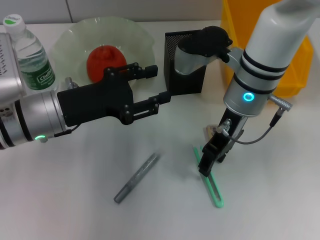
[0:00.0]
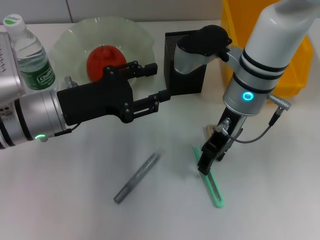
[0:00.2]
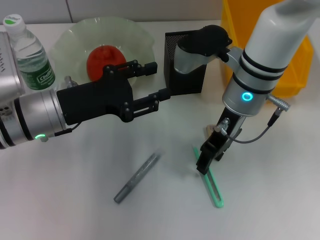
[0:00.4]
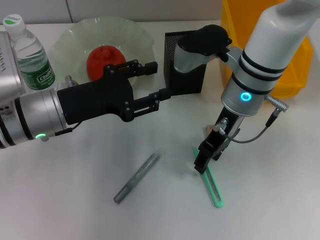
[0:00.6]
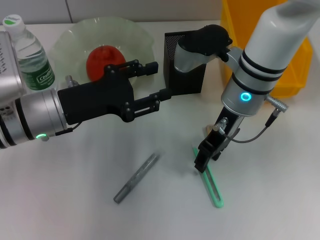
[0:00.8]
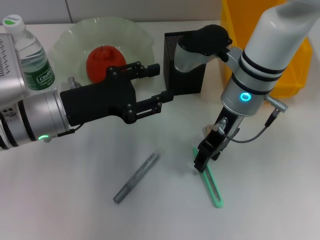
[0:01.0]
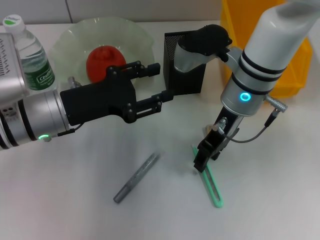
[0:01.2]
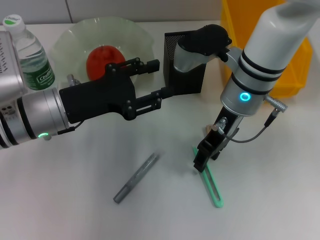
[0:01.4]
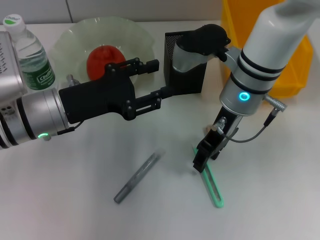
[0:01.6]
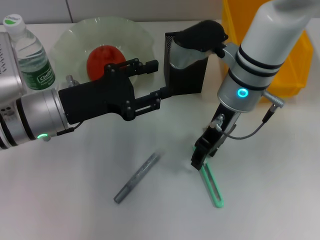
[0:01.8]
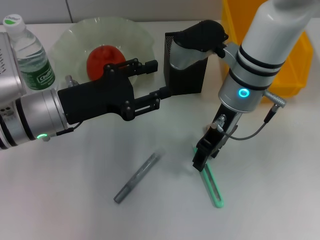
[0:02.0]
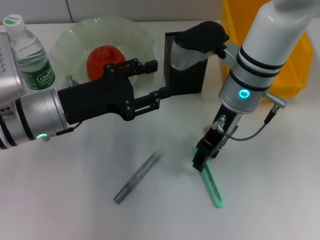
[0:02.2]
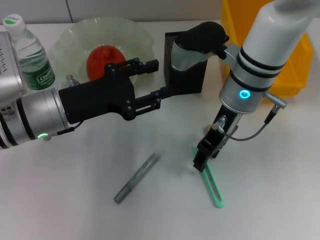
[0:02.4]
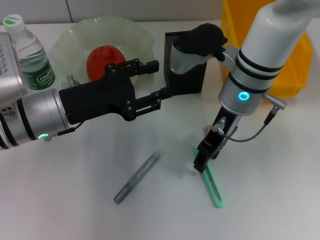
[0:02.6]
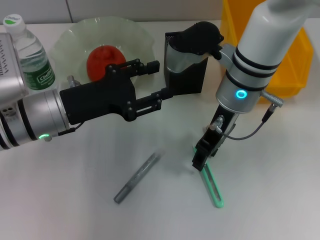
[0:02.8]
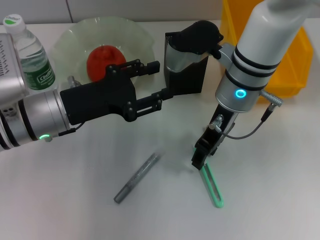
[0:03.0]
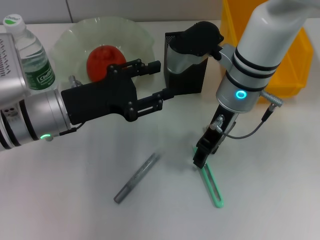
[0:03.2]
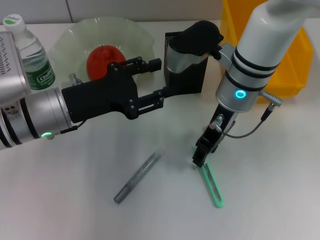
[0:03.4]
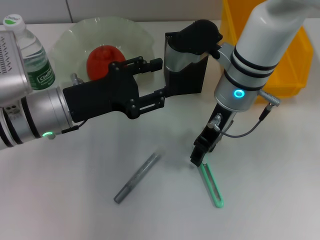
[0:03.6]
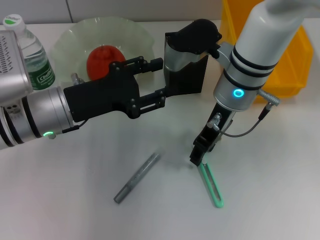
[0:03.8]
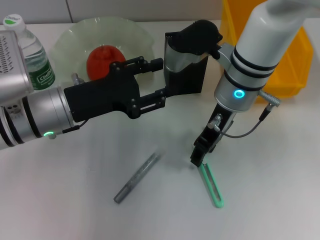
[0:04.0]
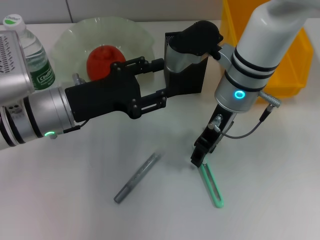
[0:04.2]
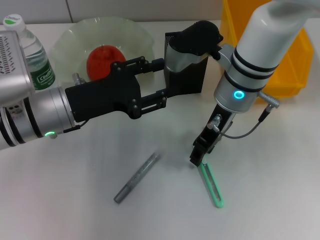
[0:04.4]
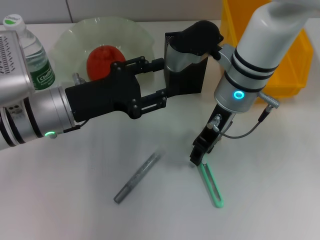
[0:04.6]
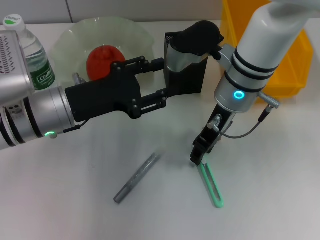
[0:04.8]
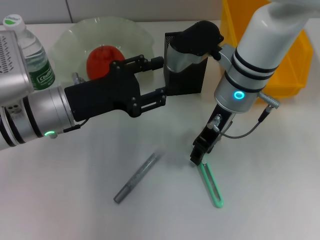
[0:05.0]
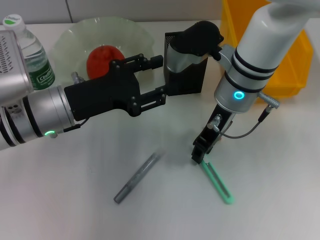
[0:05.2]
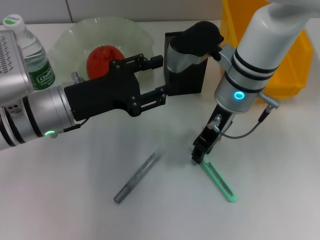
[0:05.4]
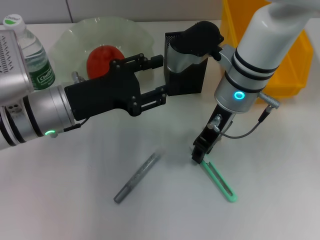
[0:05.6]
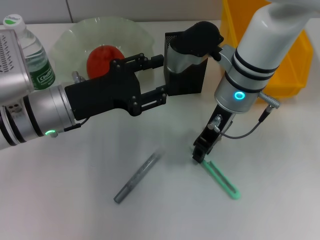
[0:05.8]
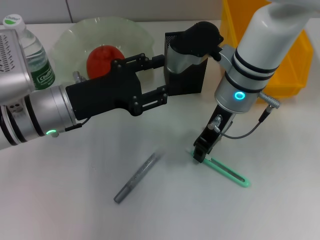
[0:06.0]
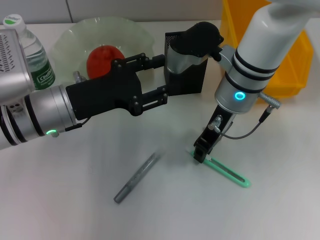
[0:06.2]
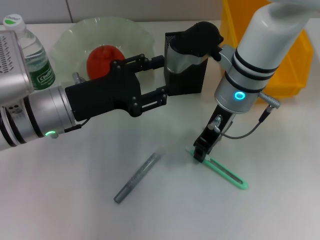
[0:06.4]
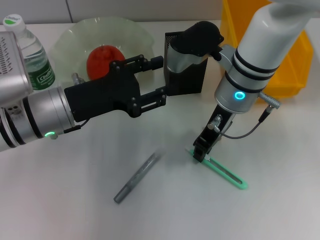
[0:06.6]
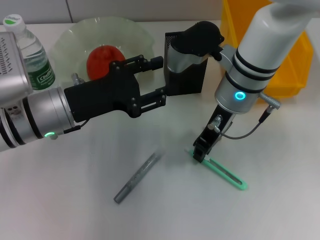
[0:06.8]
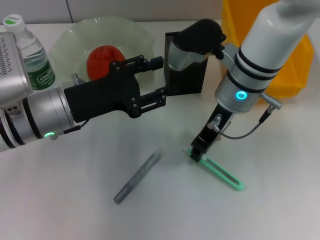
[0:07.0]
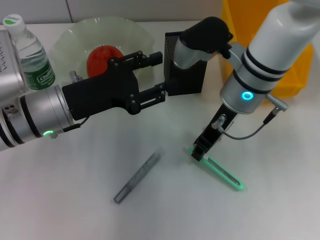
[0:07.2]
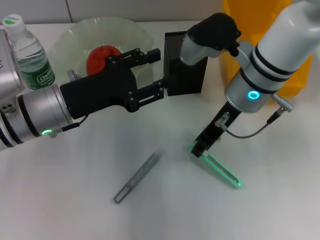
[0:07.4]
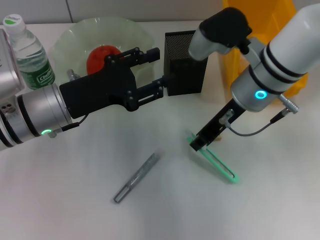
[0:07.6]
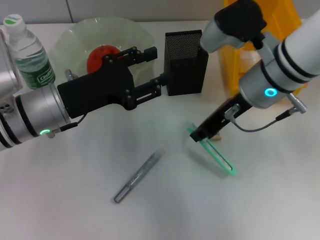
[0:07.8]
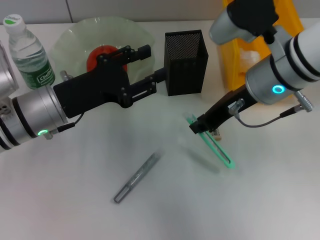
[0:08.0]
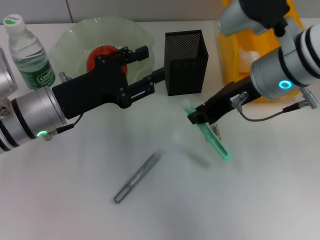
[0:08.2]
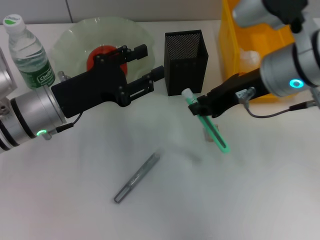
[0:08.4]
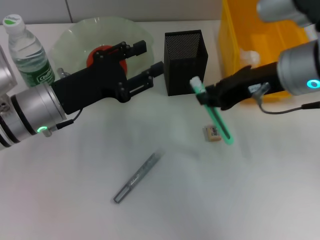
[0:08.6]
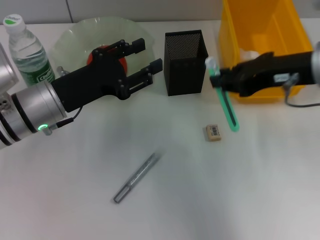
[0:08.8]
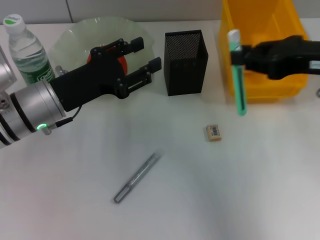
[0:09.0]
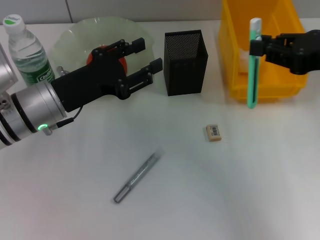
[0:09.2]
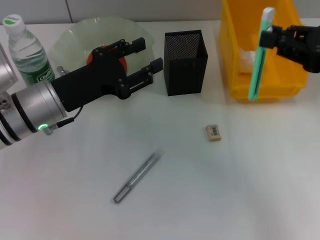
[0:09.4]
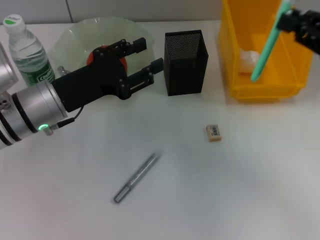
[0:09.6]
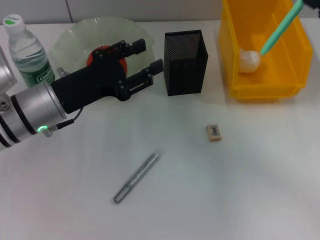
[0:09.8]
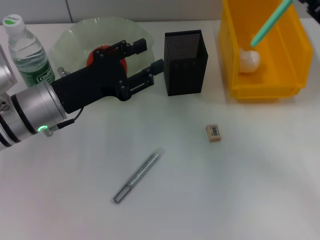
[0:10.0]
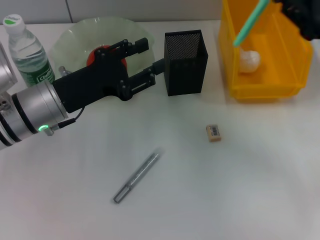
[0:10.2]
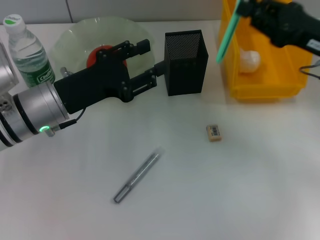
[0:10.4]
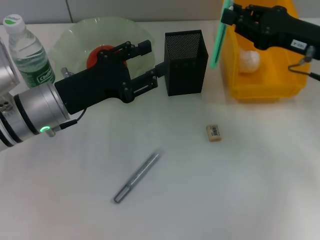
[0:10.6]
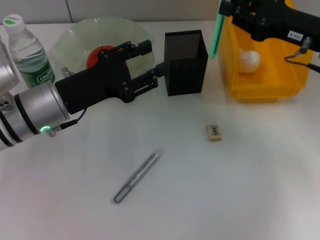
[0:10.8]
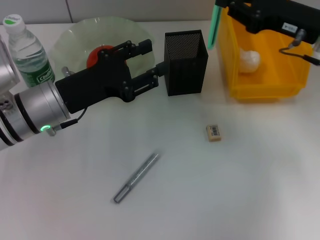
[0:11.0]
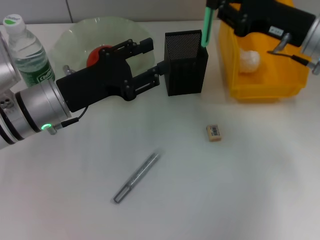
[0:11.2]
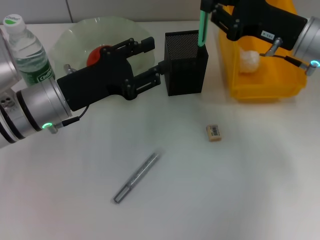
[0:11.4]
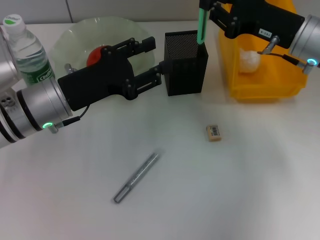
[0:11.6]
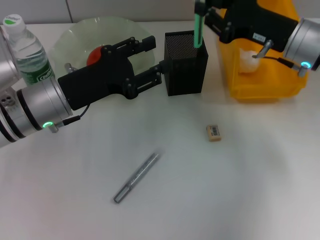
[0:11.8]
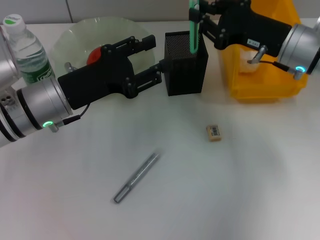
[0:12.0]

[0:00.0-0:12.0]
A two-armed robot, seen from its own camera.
Step, 0:00.0 to 0:06.4: Grab the blue utility knife with the right hand.
0:00.0 to 0:03.0: Both grippers stay about where they are.
0:03.0 to 0:04.4: The two grippers keep their place.
0:04.4 to 0:06.0: The right gripper closes its fingers.
0:07.6 to 0:09.0: The right gripper goes about 15 cm to the right, upward and backward.
0:09.0 to 0:10.4: The right gripper is displaced downward and forward by roughly 10 cm.
0:10.4 to 0:12.0: The right gripper moves to the left, roughly 5 cm.

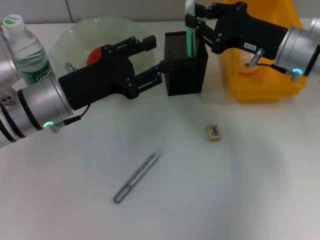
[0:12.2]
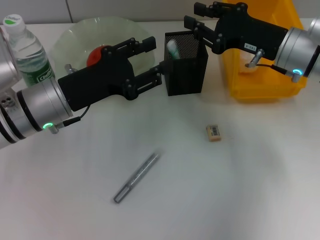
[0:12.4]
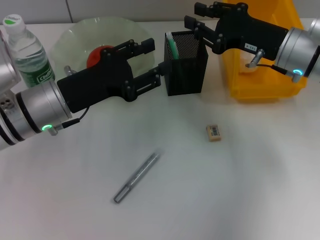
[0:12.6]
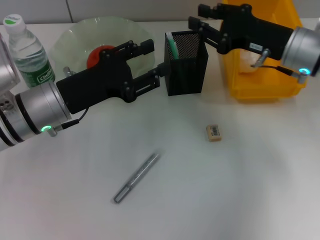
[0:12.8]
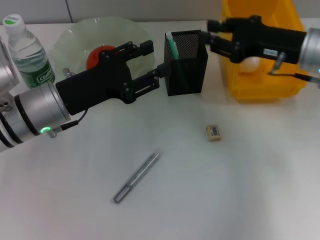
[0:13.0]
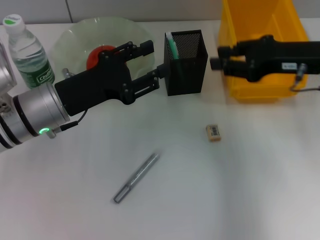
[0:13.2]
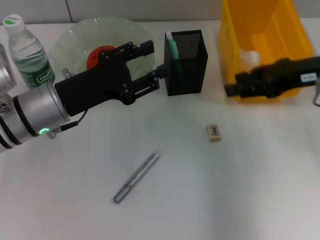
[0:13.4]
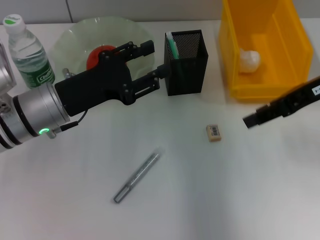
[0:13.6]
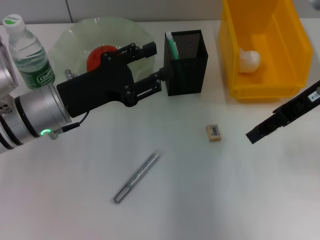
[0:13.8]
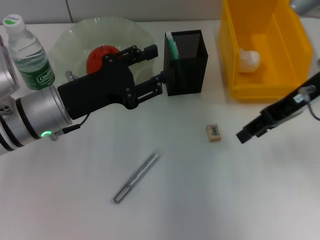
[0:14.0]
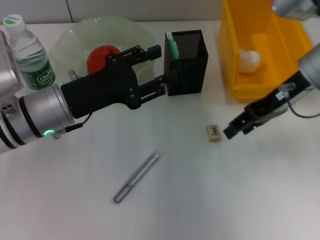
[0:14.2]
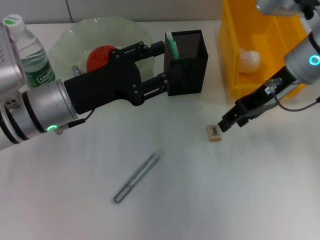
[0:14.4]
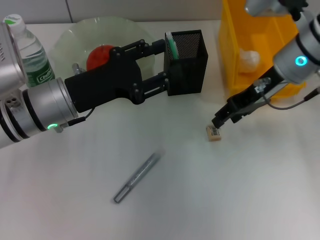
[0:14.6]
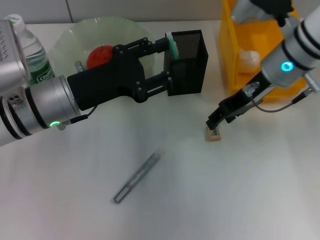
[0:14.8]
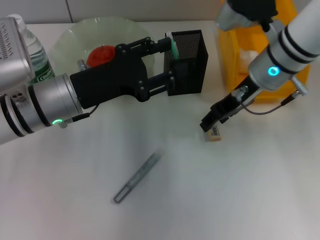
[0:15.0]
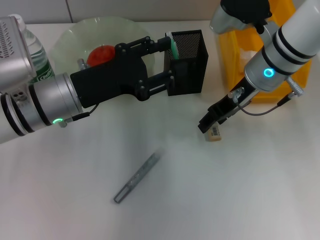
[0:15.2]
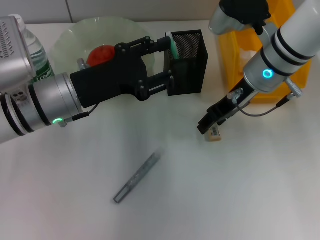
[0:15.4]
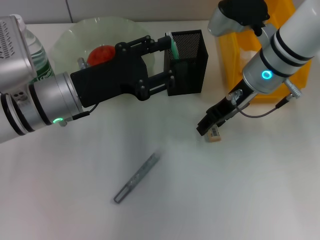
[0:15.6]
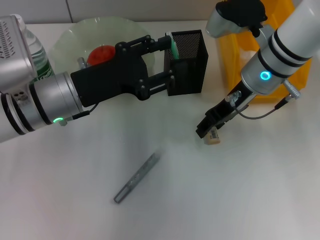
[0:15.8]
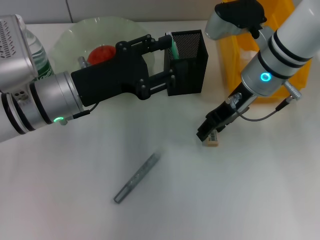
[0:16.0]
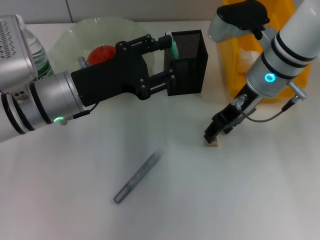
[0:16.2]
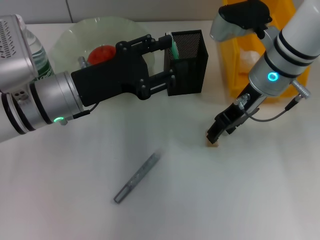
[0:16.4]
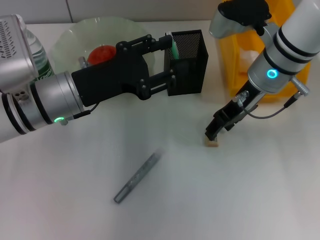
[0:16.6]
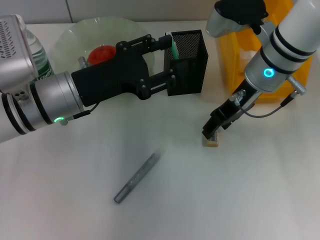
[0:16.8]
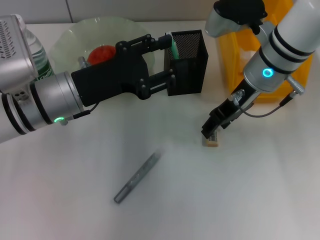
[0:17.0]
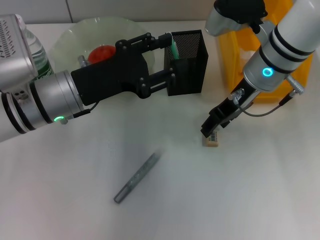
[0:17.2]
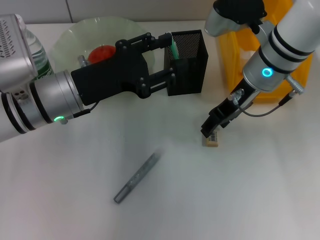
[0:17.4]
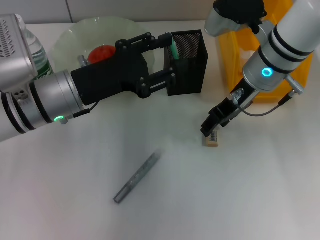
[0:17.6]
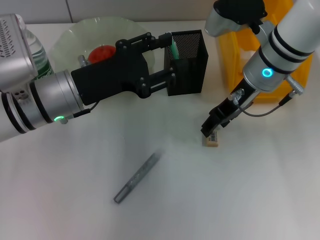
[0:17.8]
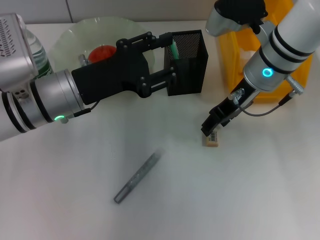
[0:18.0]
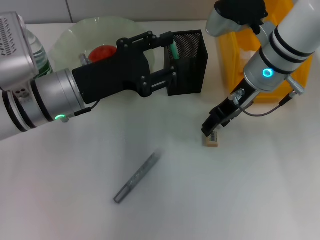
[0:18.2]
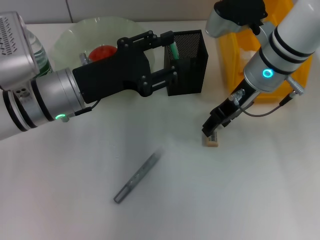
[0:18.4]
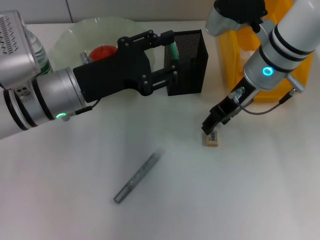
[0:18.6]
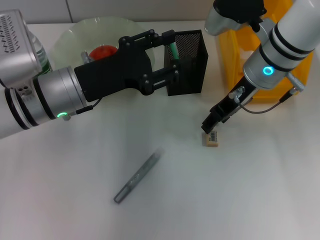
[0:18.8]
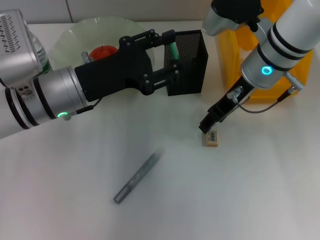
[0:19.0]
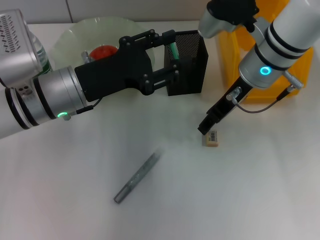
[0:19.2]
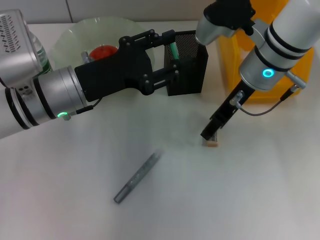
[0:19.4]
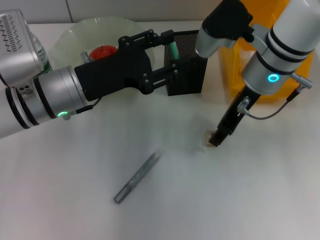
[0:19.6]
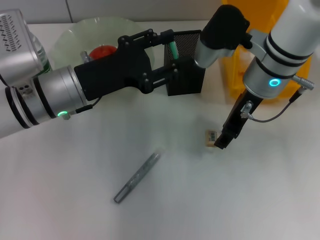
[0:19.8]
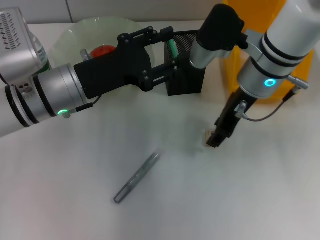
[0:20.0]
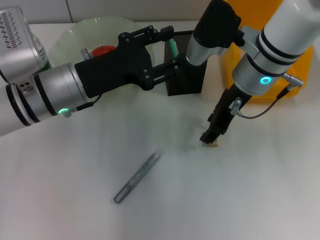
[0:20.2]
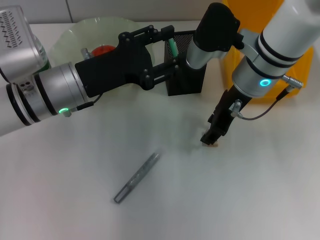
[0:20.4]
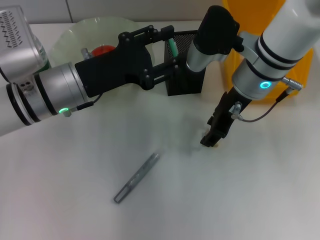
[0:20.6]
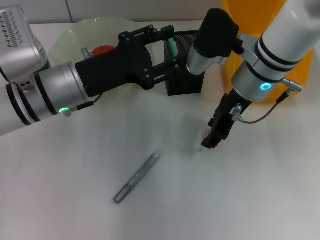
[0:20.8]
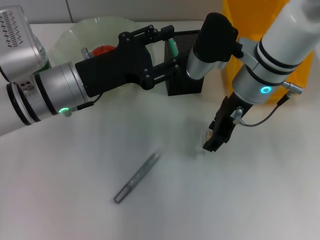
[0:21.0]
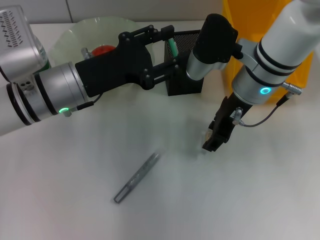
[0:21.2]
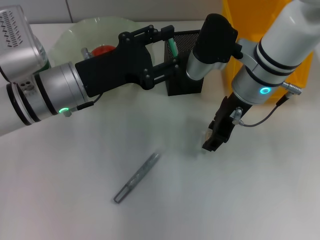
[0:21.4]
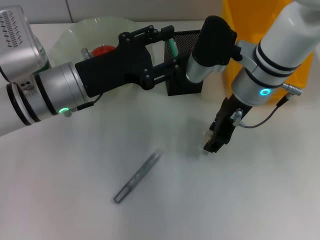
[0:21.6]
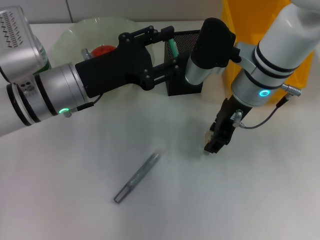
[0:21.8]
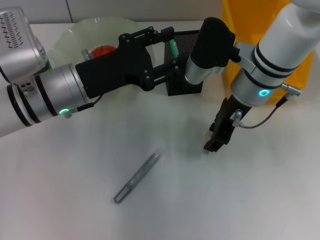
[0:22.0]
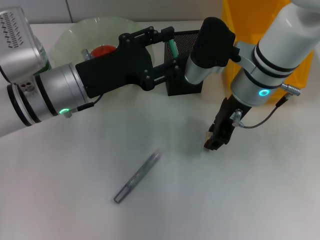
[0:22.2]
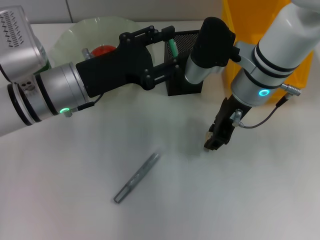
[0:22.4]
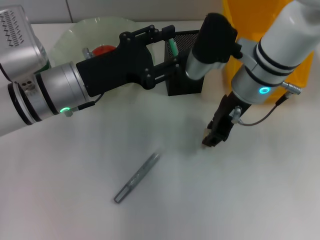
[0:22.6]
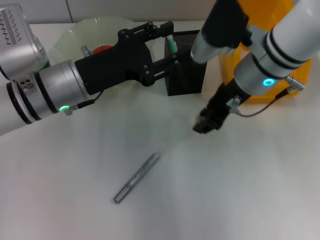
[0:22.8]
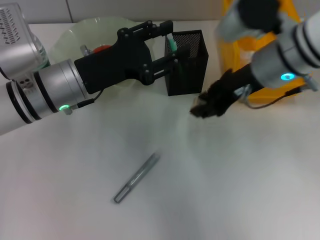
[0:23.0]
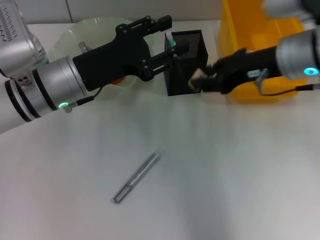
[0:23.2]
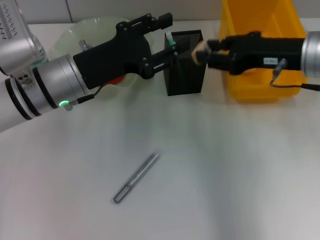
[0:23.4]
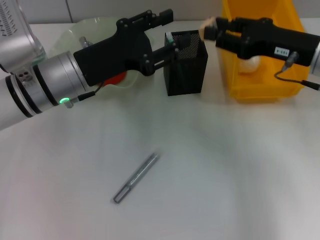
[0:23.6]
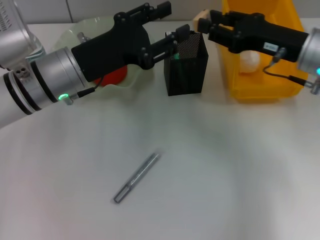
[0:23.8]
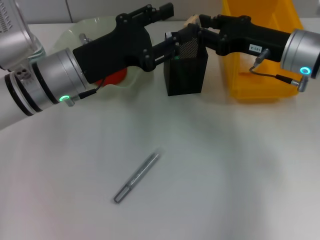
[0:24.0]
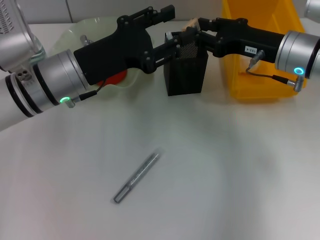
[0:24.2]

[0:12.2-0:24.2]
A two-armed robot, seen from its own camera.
Step, 0:12.6 to 0:22.2: Grab the eraser with the right hand.
0:12.2 to 0:13.8: The right gripper goes approximately 10 cm upward, and opens.
0:13.8 to 0:15.2: The right gripper is displaced to the left and downward by some 10 cm.
0:15.2 to 0:16.6: The grippers make only small movements.
0:16.6 to 0:18.2: Both grippers stay about where they are.
0:19.8 to 0:21.2: The grippers stay close to where they were, moving slightly.
0:21.2 to 0:22.6: Both grippers stay about where they are.
0:22.6 to 0:24.2: The right gripper moves to the right, about 10 cm.
